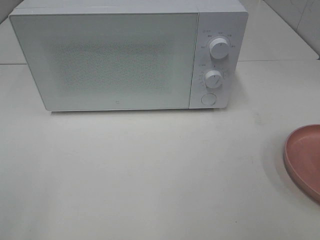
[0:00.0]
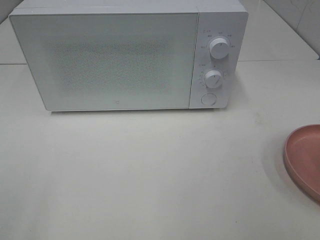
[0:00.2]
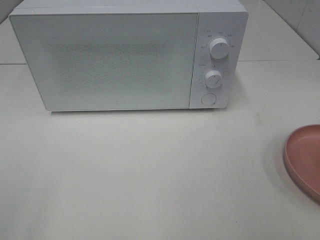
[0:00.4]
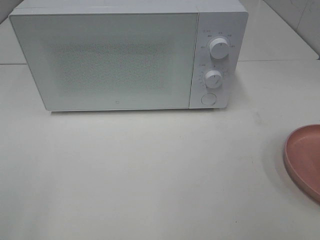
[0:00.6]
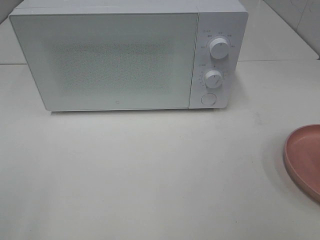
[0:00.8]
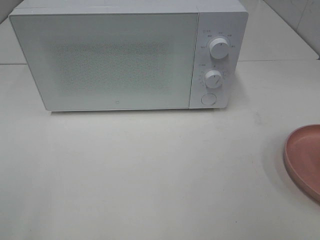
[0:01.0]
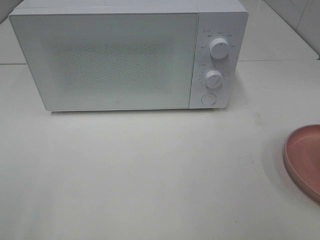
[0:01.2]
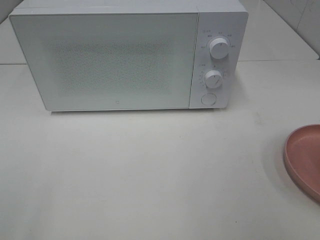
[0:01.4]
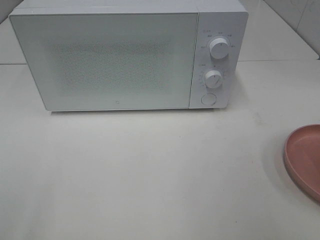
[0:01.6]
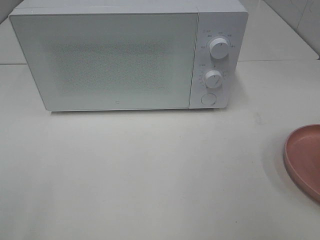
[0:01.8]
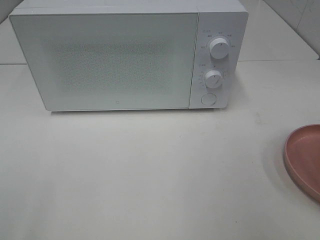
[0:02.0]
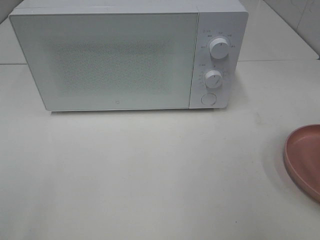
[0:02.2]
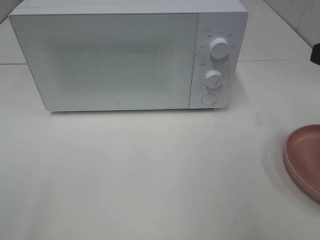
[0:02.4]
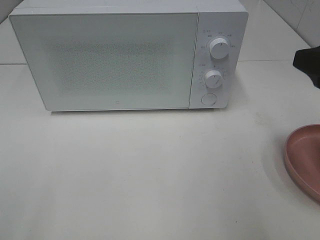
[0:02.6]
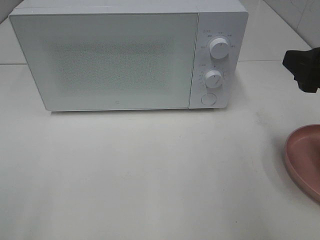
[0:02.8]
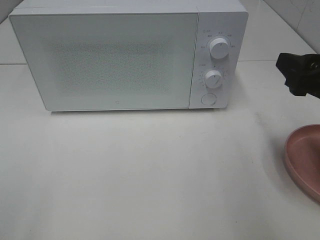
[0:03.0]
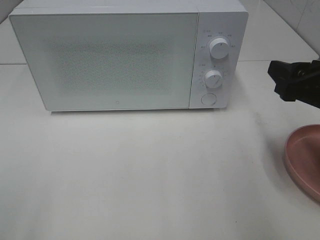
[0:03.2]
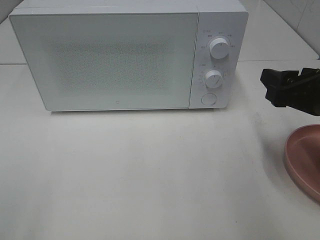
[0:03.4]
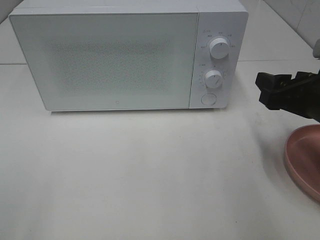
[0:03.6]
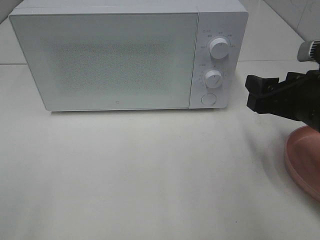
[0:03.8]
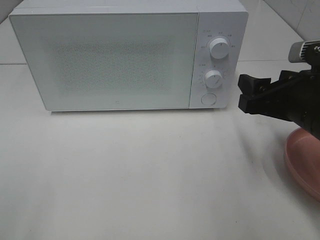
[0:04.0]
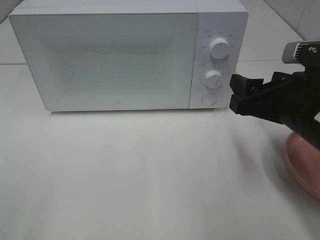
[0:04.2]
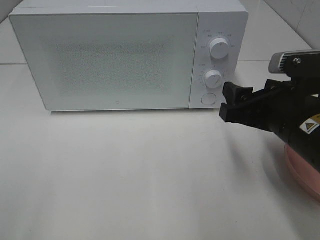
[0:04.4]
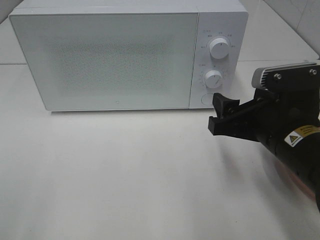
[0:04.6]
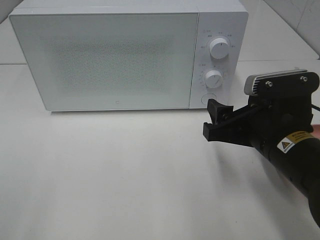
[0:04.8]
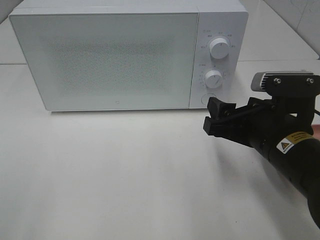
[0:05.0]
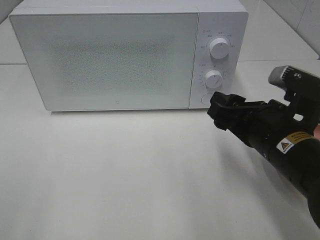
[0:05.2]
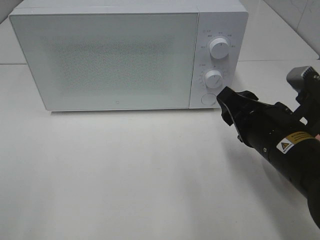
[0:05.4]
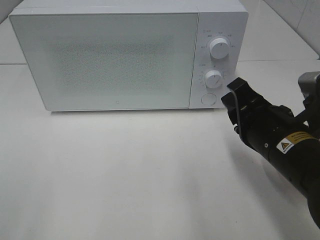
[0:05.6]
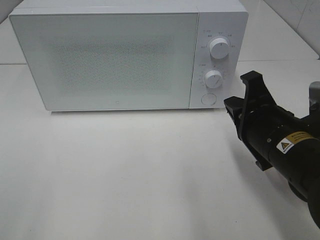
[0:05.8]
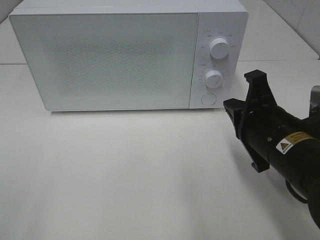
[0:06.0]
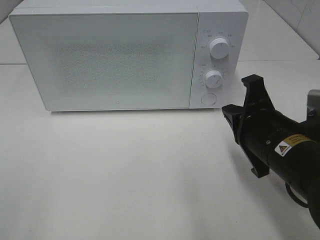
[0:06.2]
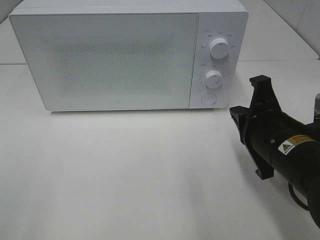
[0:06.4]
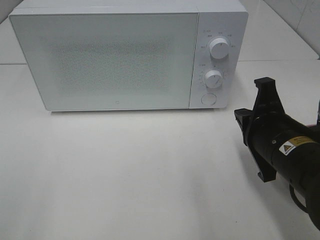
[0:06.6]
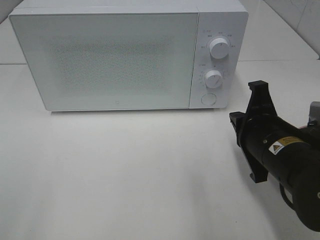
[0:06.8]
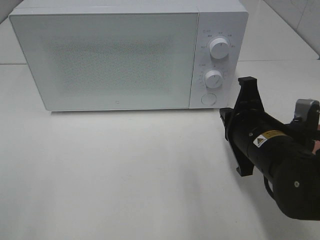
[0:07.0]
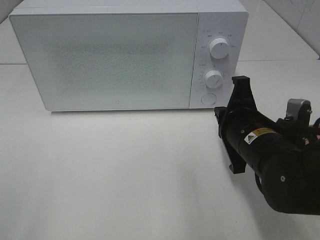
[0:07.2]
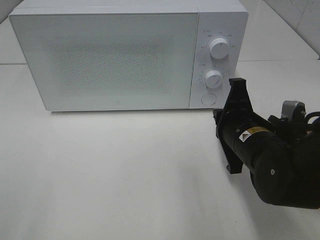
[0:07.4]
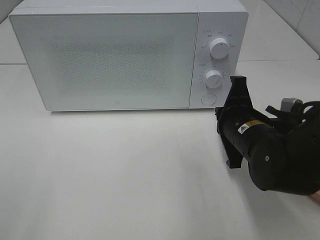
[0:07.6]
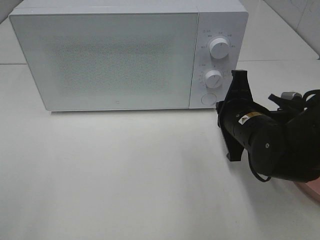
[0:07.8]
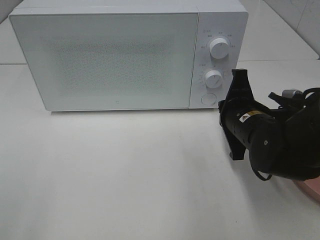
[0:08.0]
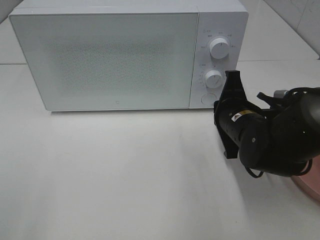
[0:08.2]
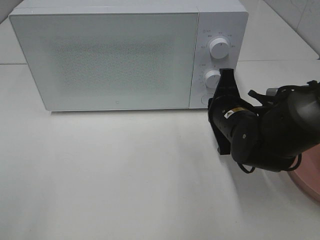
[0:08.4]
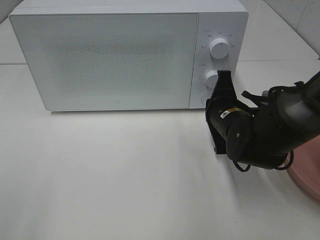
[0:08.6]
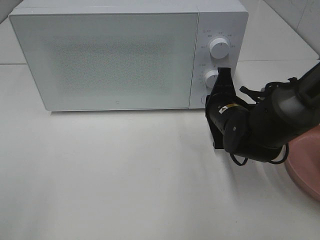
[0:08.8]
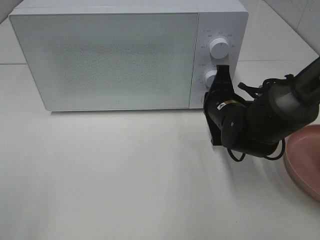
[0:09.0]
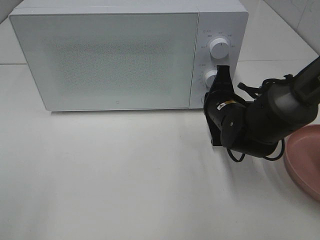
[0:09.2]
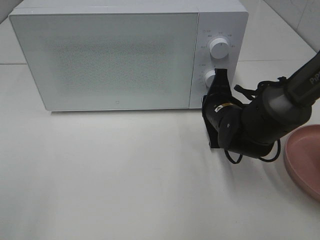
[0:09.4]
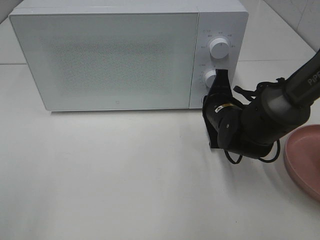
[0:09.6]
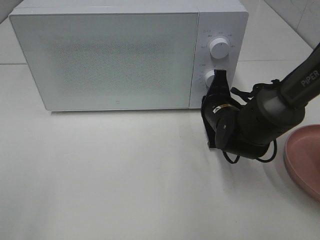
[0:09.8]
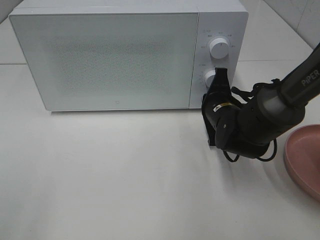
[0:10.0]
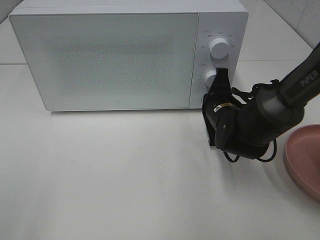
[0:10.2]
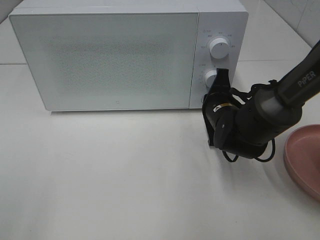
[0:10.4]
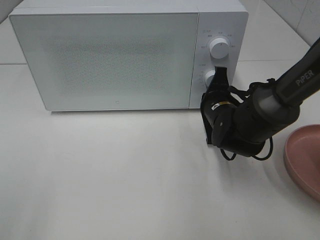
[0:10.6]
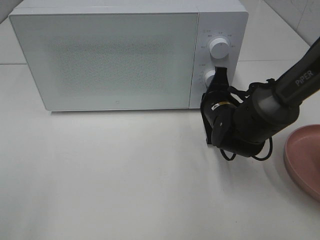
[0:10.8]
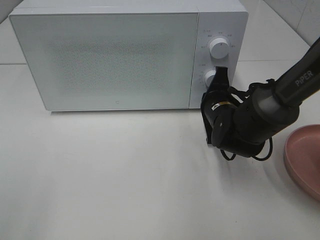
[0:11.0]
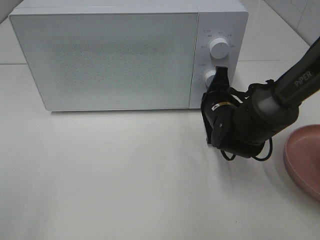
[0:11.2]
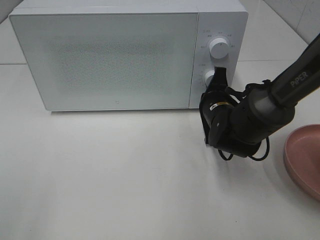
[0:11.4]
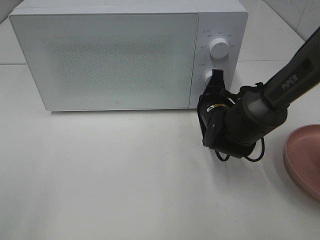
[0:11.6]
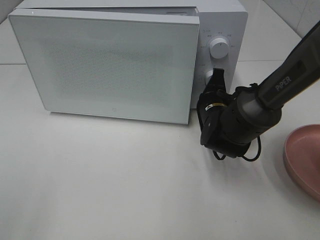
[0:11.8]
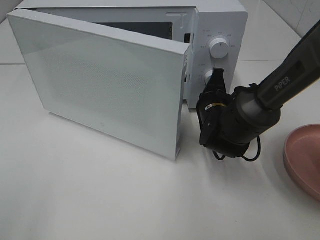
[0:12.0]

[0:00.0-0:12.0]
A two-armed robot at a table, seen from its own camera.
Task of the whole recording: Heat the burger.
0:01.6 to 0:03.0: The right gripper is displaced forward and downward by about 15 cm.
0:03.0 to 0:04.4: The right gripper shifts about 5 cm to the left.
0:04.4 to 0:06.0: The right gripper closes up.
0:06.0 to 0:07.6: The right gripper shifts approximately 5 cm forward.
0:07.6 to 0:09.0: The right gripper moves forward, some 5 cm.
0:09.0 to 0:12.0: The grippers make only small movements.

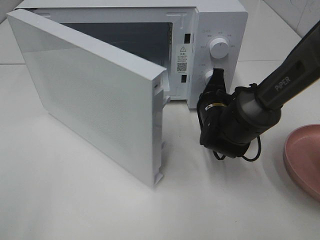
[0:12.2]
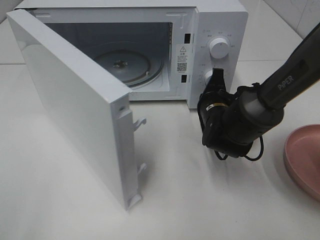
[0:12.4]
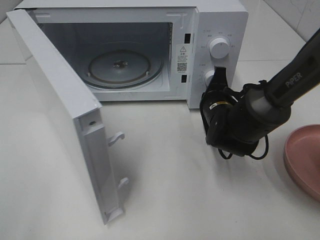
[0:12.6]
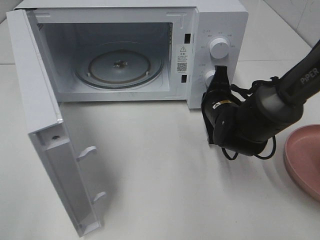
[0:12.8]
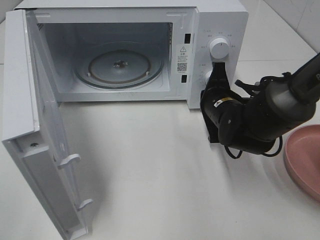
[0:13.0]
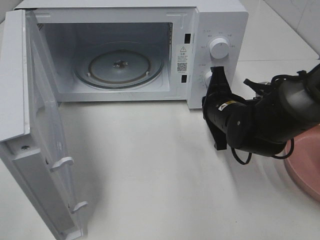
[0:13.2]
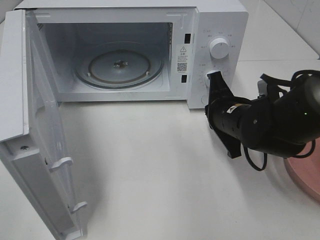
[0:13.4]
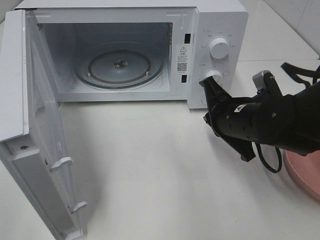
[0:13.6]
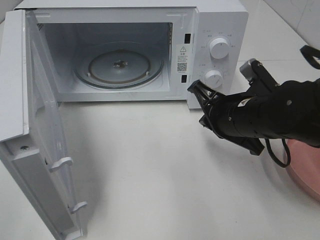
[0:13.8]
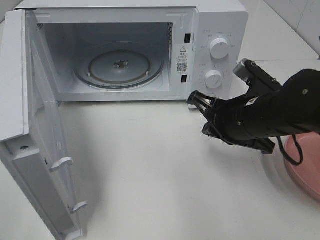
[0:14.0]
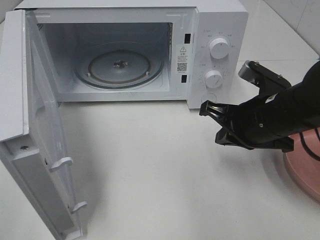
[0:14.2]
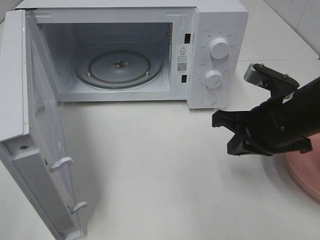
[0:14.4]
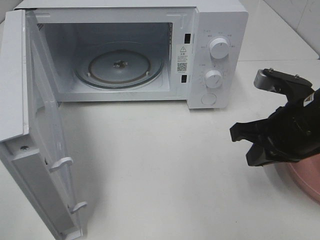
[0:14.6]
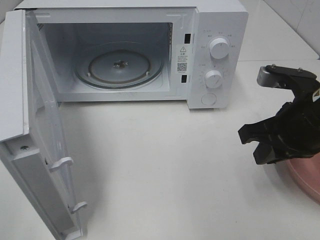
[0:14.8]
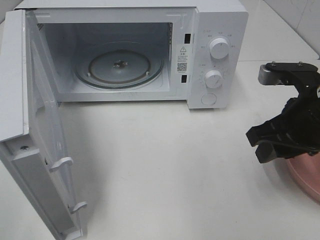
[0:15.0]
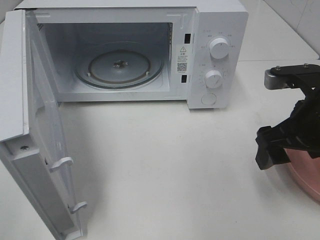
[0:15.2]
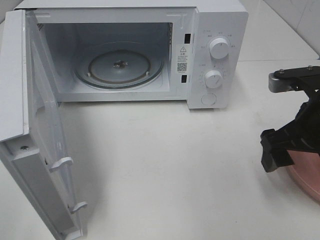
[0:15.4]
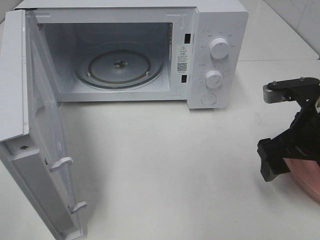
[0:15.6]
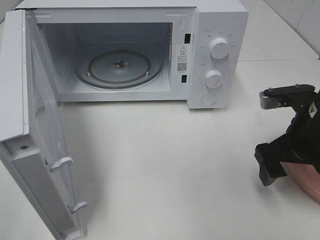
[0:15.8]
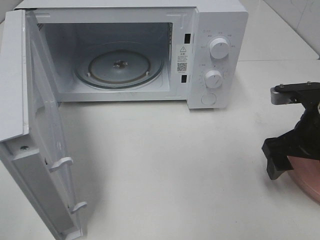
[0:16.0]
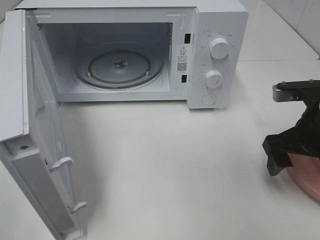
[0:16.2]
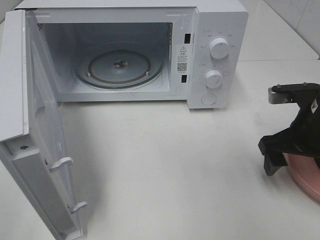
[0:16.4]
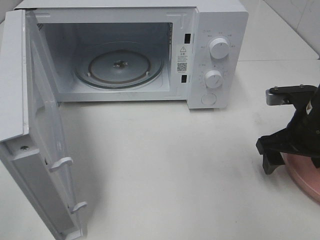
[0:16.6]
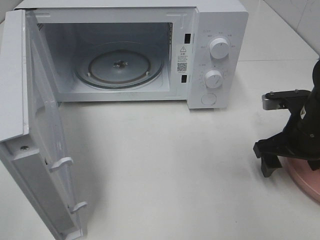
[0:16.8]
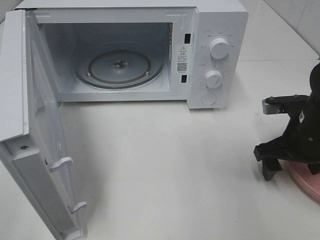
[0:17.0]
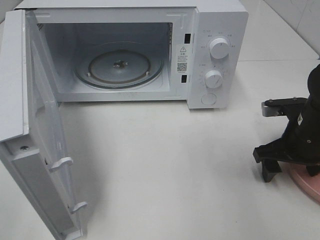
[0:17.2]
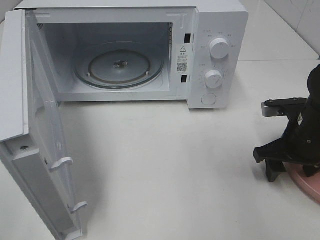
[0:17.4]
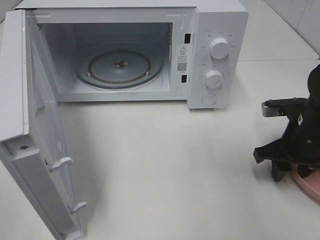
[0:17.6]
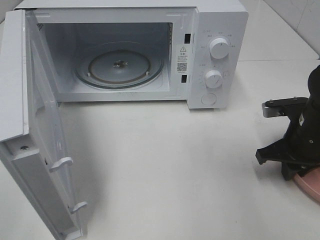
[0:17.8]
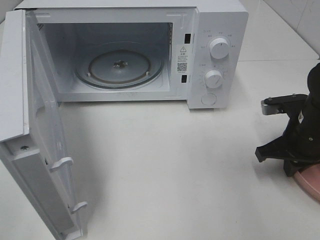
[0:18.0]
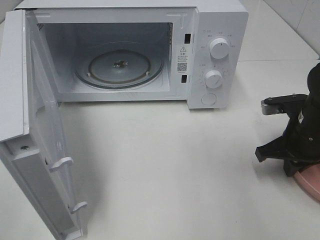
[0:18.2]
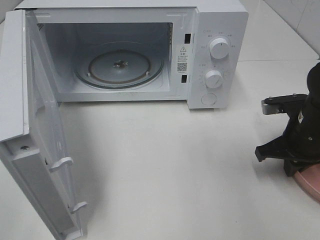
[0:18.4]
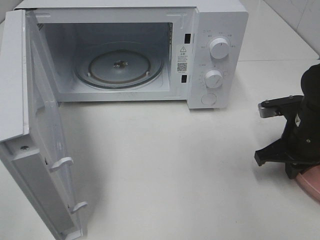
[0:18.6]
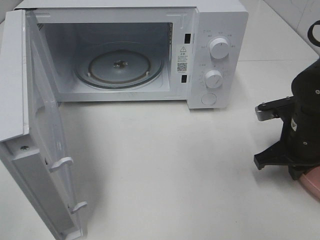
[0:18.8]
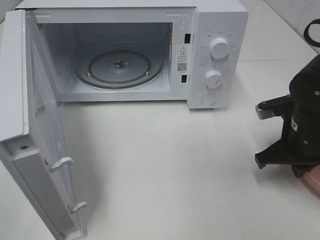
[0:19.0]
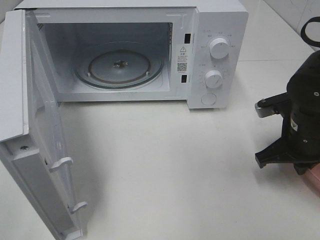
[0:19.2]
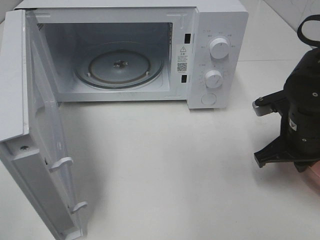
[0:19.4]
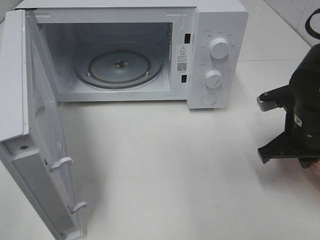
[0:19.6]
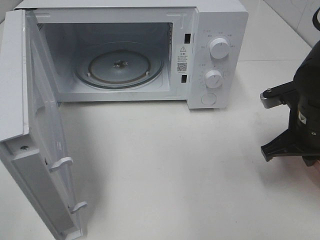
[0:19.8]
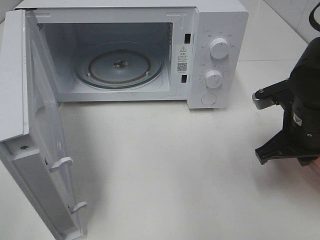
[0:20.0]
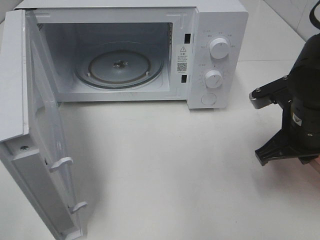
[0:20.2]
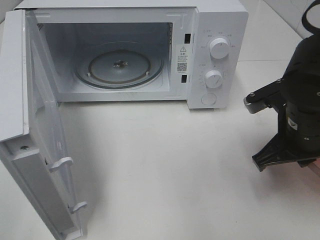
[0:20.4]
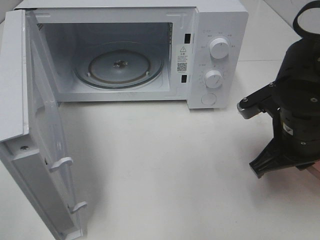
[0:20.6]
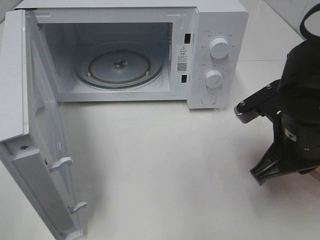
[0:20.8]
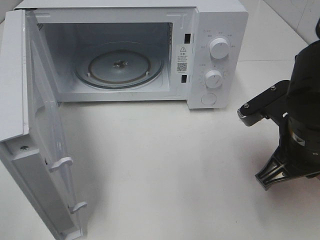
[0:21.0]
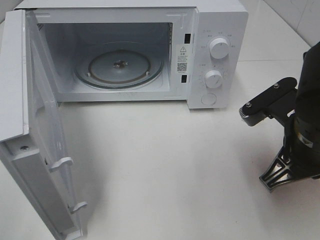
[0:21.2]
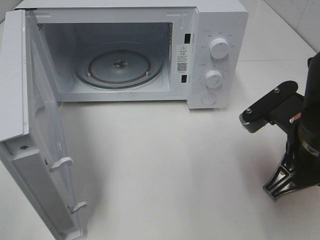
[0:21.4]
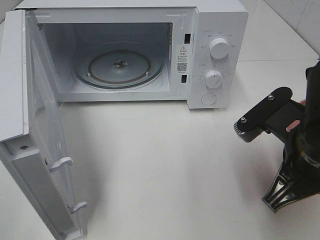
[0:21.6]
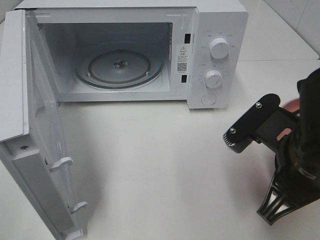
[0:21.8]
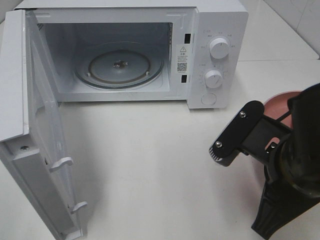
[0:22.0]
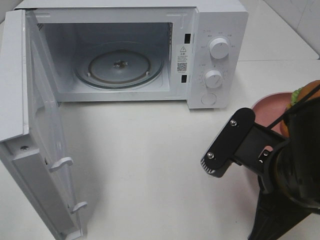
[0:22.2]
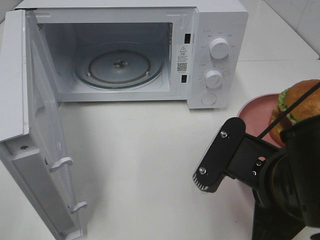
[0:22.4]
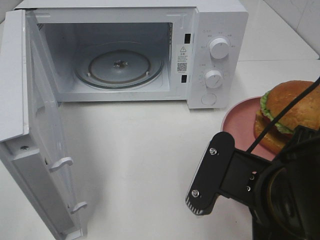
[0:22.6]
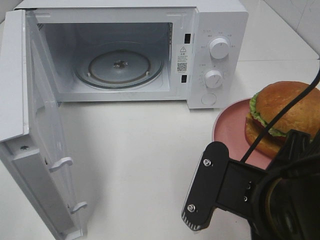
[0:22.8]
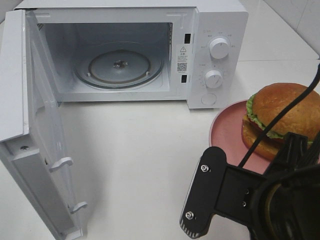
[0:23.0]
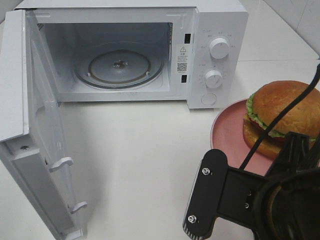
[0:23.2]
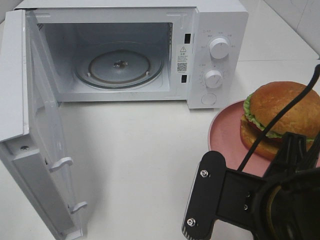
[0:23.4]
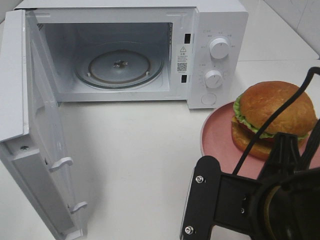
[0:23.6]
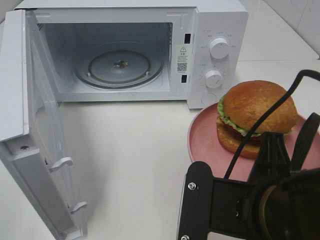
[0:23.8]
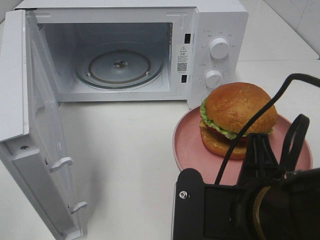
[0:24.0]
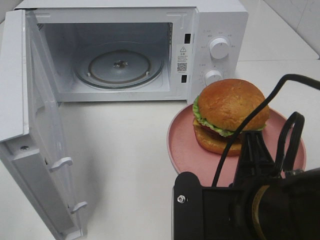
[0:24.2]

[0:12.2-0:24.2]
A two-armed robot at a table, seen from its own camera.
Task of the whole recording: Heat the burger.
Step, 0:13.0 to 0:18.0: Right hand: grab the plate with the hamburger.
0:12.2 to 0:13.8: The right gripper is displaced backward and upward by roughly 10 cm.
0:13.8 to 0:15.2: The right gripper is displaced to the right and upward by about 10 cm, and opens its fingers.
0:15.2 to 0:16.6: The right gripper shifts approximately 5 cm downward.
0:16.6 to 0:18.2: The right gripper closes up.
0:18.2 to 0:19.8: The right gripper changes place by some 5 cm.
0:19.8 to 0:21.2: The right gripper goes approximately 5 cm backward.
0:21.2 to 0:22.6: The right gripper shifts roughly 10 cm backward and to the left.
